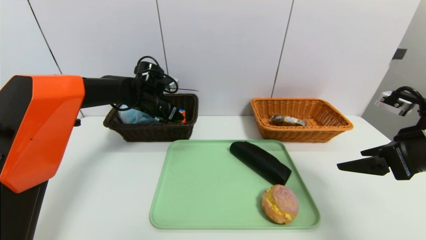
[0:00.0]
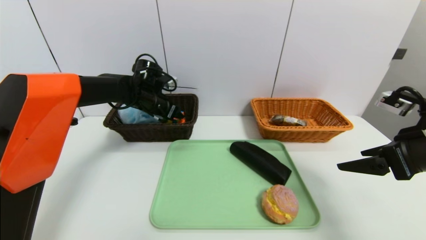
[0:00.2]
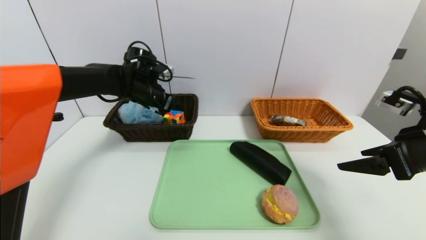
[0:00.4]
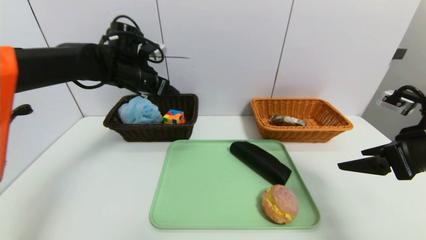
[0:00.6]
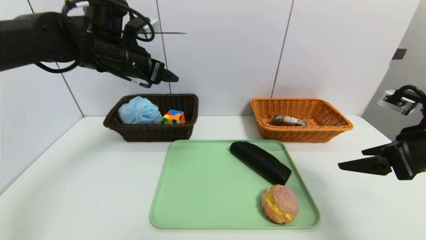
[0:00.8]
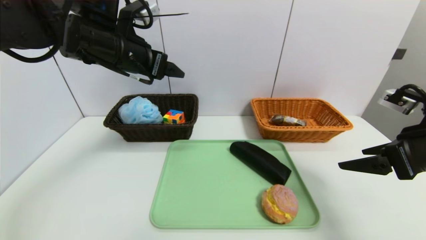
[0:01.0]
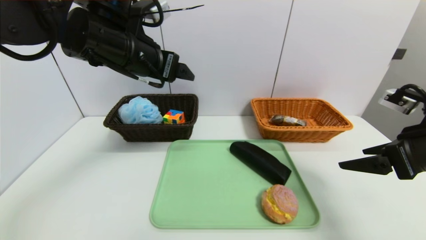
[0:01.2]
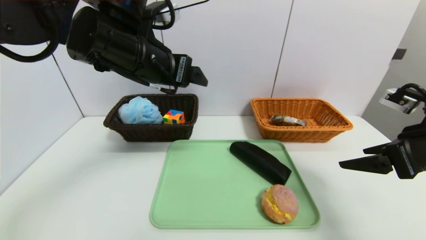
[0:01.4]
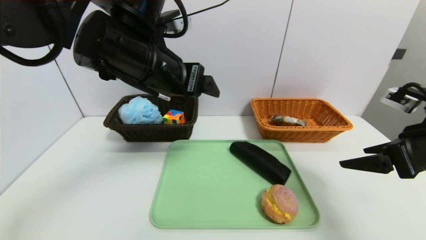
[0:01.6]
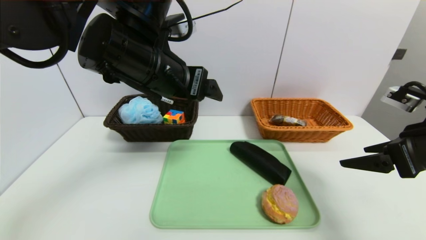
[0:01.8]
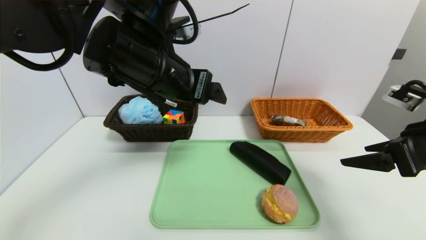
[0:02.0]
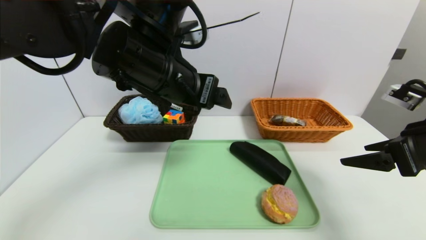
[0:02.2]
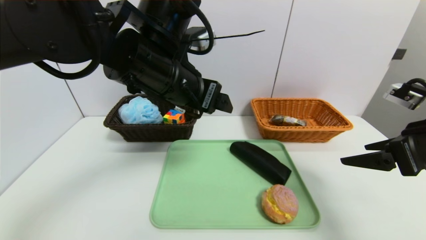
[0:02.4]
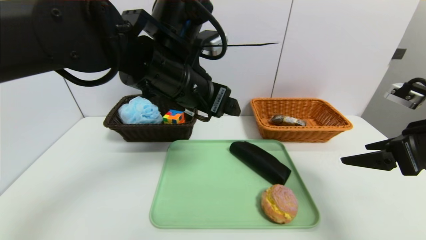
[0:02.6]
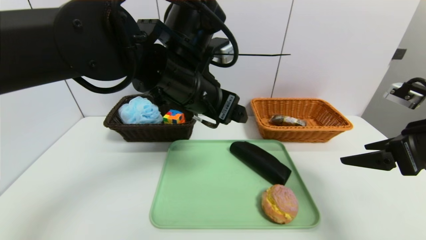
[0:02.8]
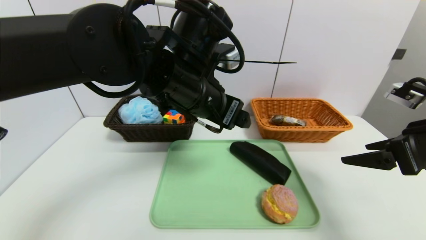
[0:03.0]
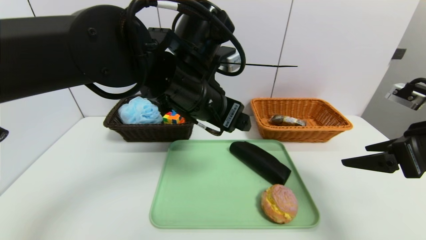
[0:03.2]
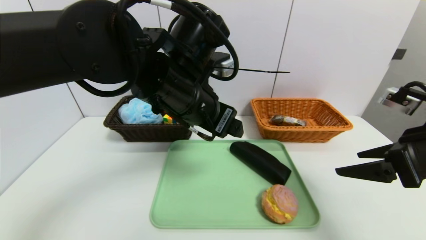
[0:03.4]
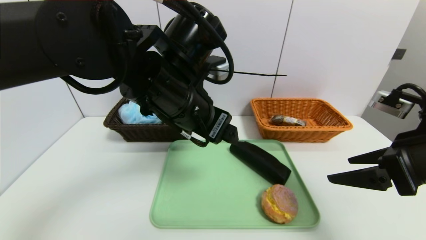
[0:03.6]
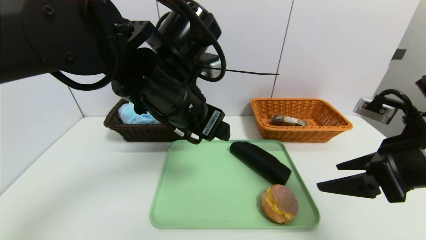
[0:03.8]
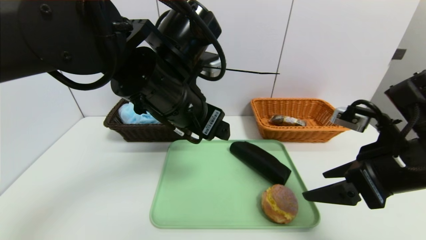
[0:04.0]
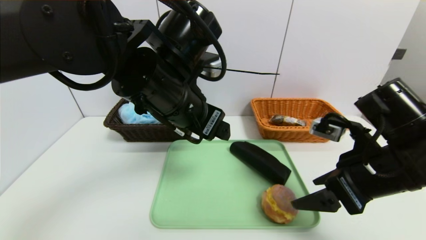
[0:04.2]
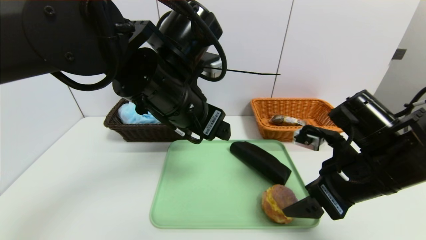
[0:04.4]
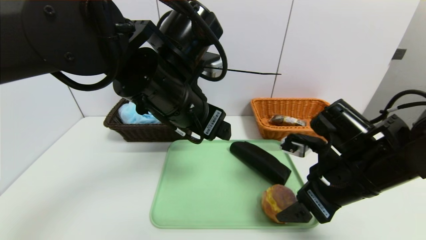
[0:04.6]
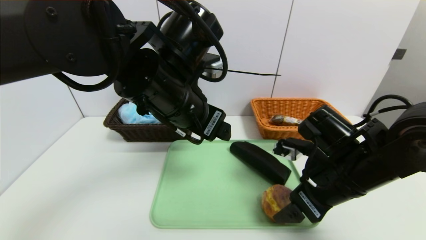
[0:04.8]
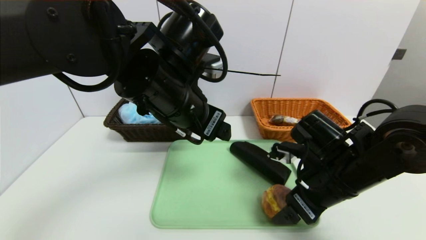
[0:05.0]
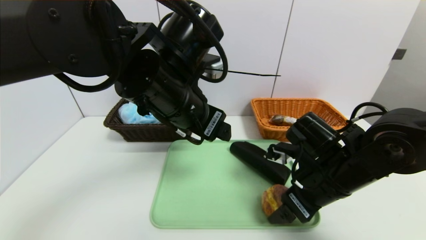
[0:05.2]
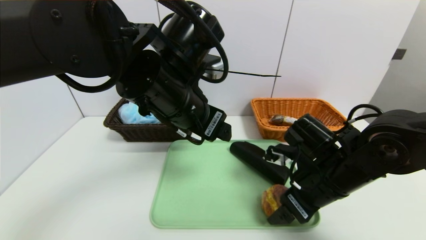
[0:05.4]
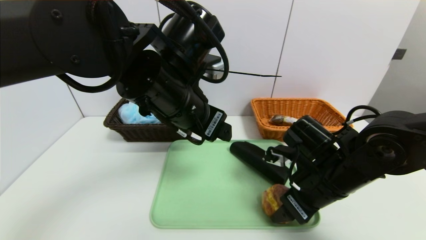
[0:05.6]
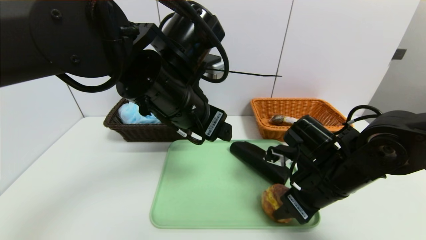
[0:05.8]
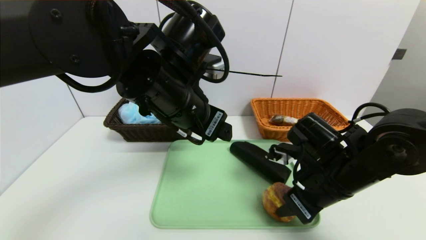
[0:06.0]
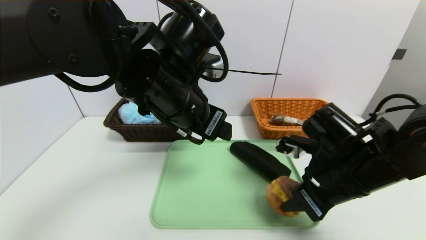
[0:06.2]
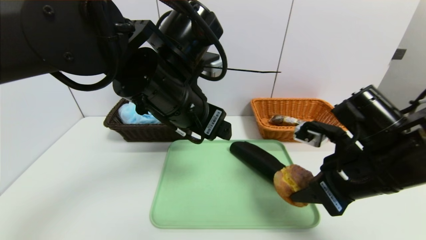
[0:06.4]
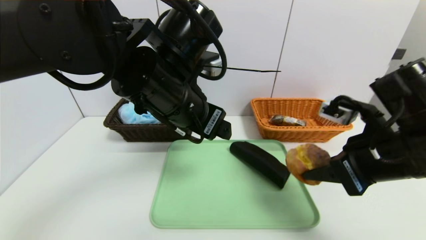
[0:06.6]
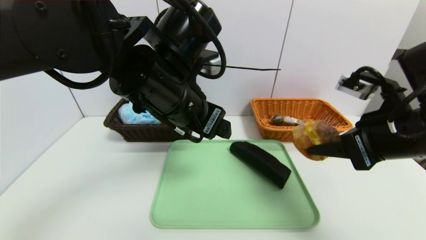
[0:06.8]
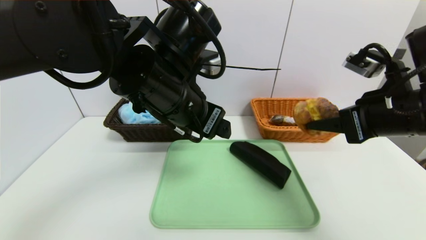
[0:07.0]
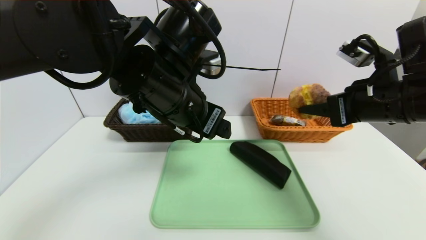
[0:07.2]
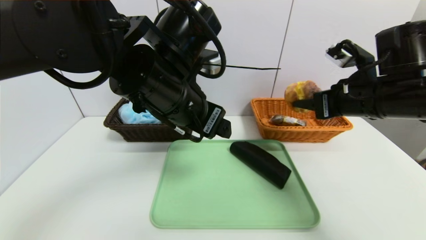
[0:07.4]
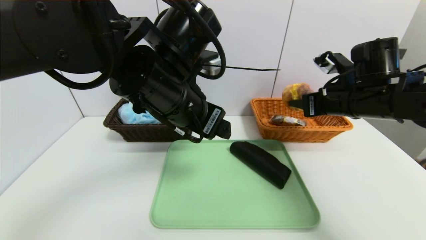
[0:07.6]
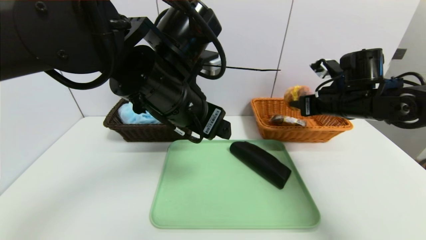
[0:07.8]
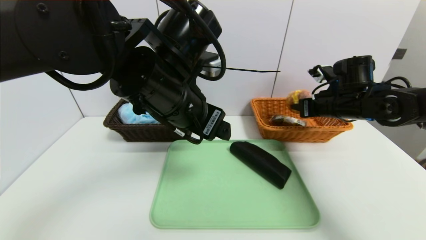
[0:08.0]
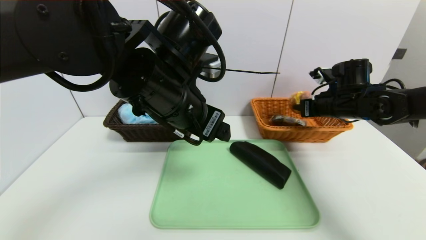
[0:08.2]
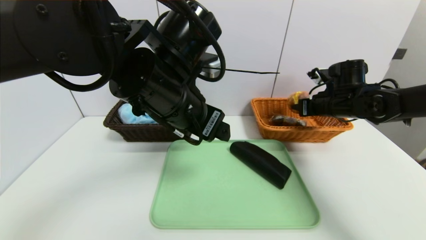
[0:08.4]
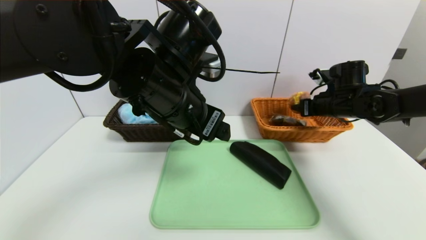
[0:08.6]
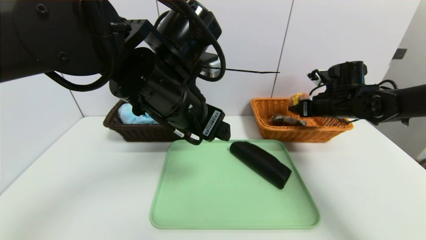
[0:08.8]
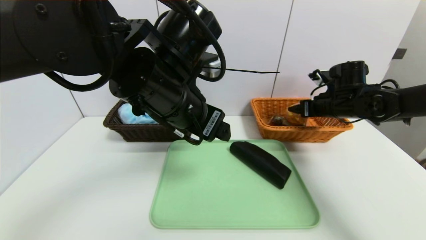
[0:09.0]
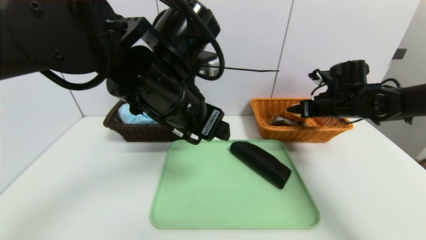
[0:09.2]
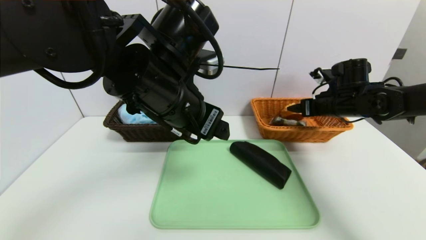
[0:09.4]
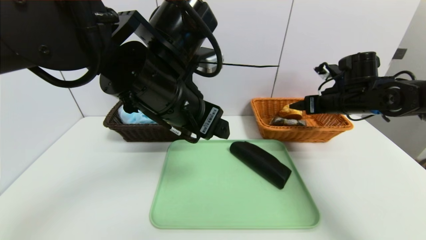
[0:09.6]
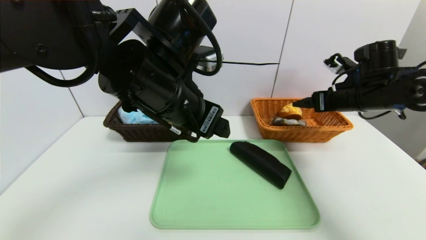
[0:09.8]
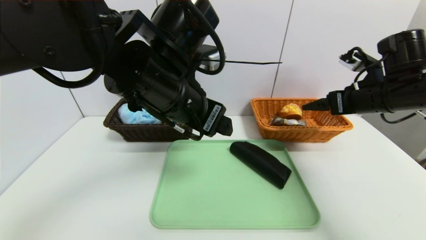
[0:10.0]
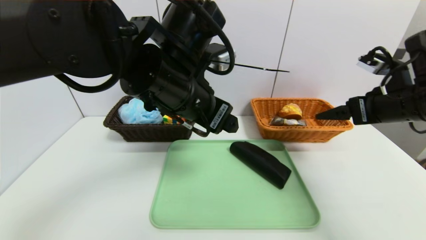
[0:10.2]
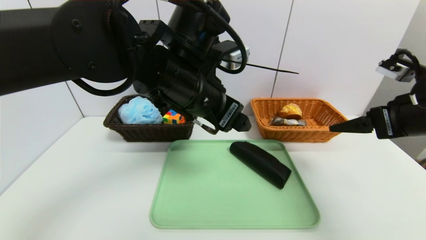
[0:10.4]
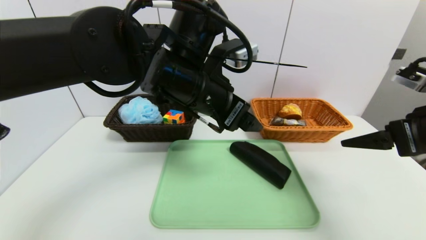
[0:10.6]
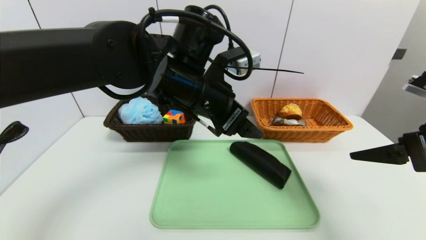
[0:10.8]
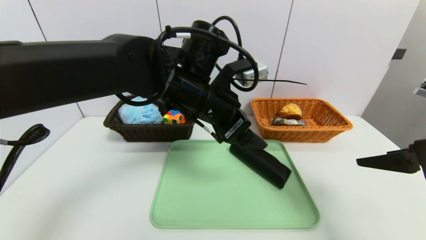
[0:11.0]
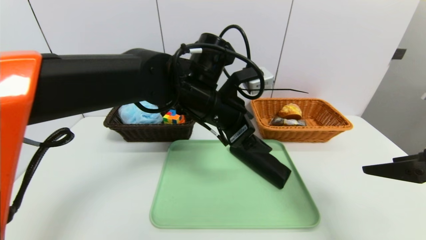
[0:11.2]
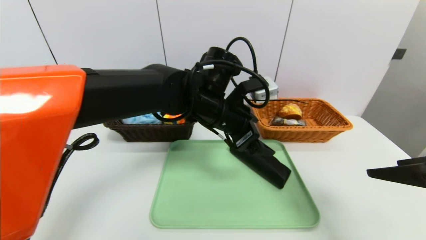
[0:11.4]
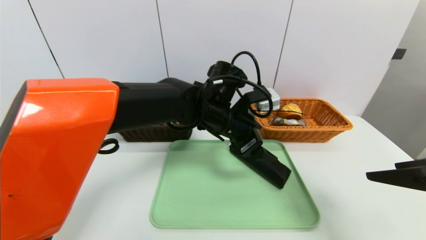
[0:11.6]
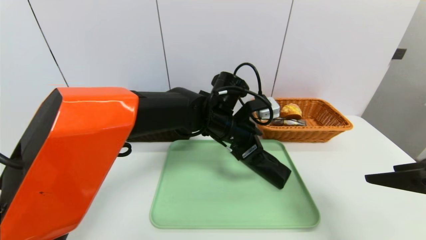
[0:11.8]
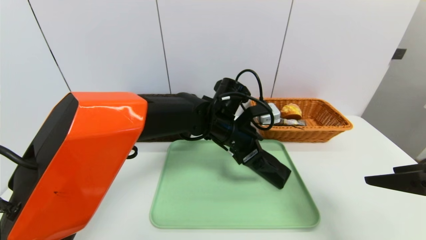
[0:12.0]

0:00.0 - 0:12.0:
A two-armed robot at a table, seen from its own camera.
Task of the whole recording: place the food in the right basket with the right gripper, and place the non food items in the left basket with the left gripper.
Step, 0:00.6 - 0:09.4: Grasp the round bread and put it in the right basket.
0:00.0 - 0:01.6: The left gripper moves backward and upward, about 25 cm.
0:01.6 - 0:03.0: The left gripper travels to the right by some 5 cm.
0:03.0 - 0:04.4: The right gripper heads to the left and downward, covering roughly 10 cm.
0:04.4 - 0:06.0: The right gripper ends up some 5 cm from where it was, and closes.
0:06.0 - 0:07.6: The right gripper goes approximately 15 cm forward, upward and to the right.
0:07.6 - 0:09.0: The right gripper moves forward and downward, approximately 10 cm, and opens up.
0:09.0 - 0:10.4: The right gripper moves backward and upward, about 20 cm.
0:10.4 - 0:12.0: The left gripper heads downward, forward and to the right, covering some 15 cm; the right gripper moves backward, approximately 10 cm.

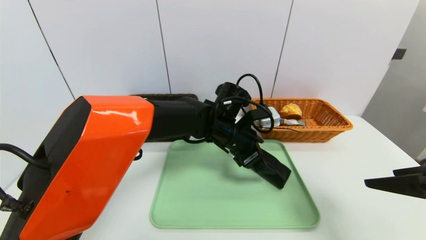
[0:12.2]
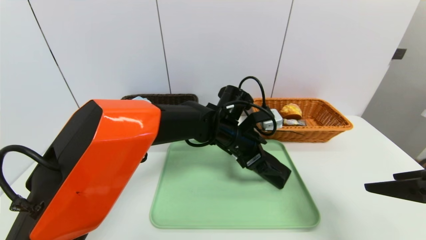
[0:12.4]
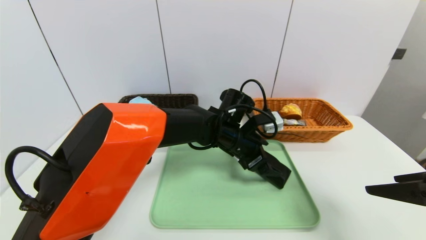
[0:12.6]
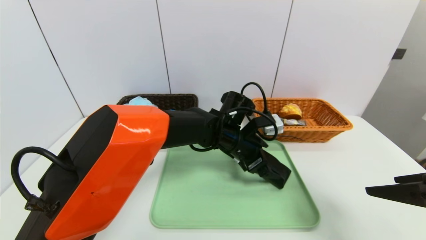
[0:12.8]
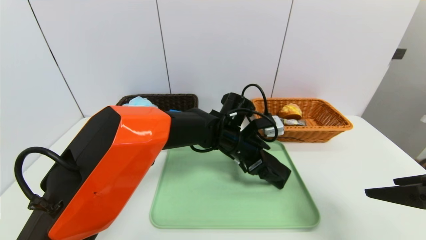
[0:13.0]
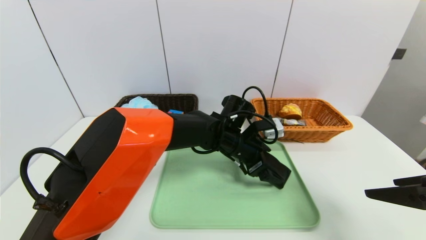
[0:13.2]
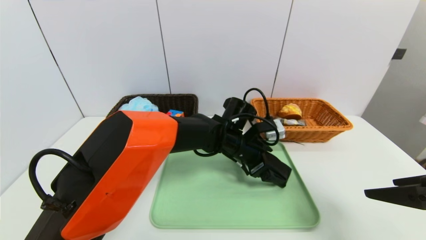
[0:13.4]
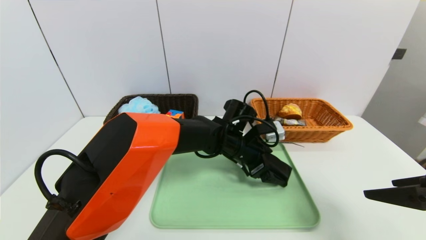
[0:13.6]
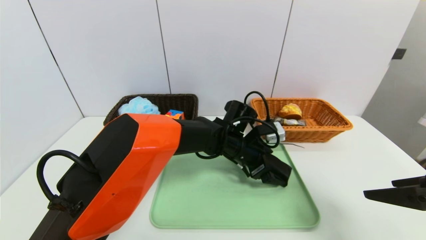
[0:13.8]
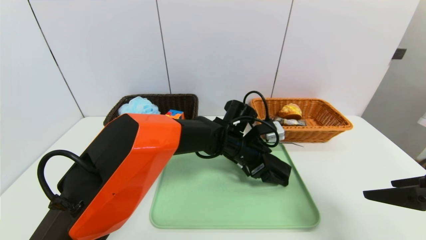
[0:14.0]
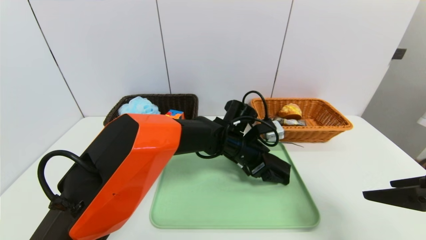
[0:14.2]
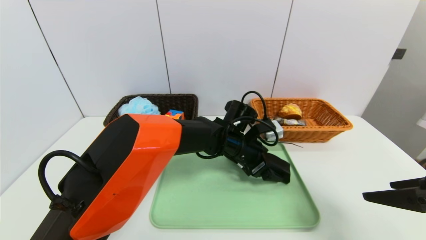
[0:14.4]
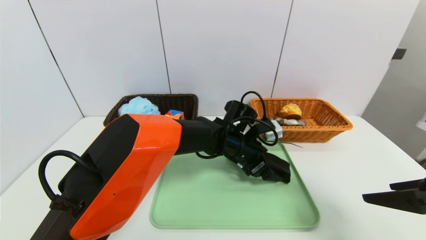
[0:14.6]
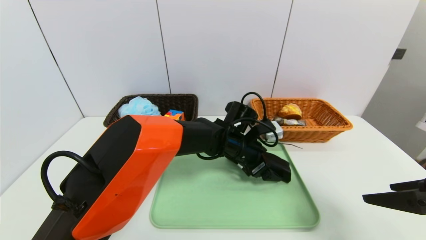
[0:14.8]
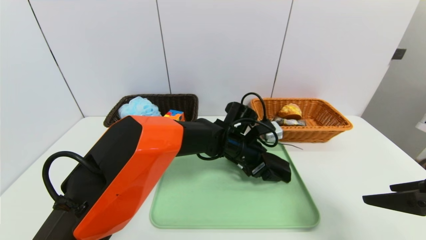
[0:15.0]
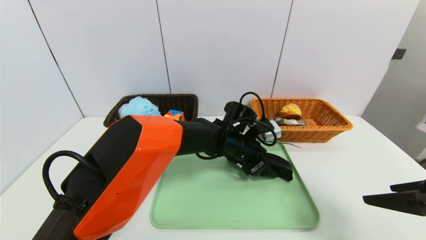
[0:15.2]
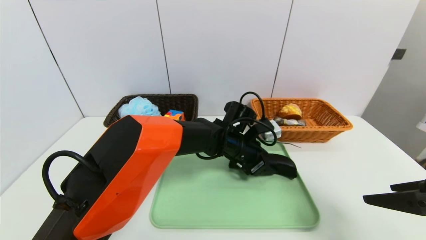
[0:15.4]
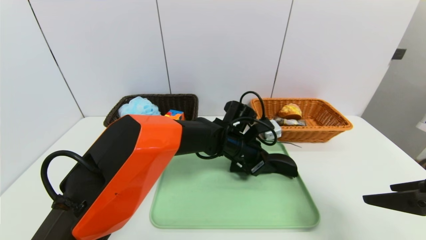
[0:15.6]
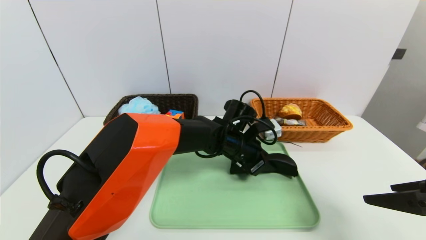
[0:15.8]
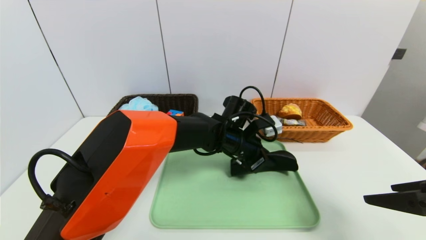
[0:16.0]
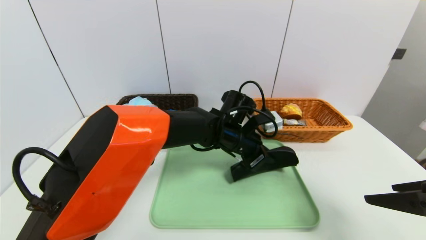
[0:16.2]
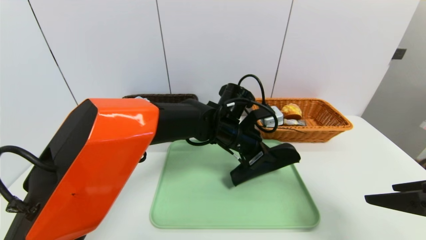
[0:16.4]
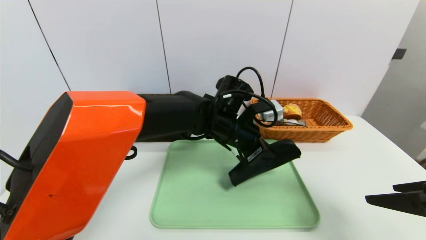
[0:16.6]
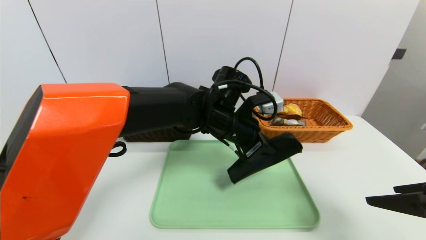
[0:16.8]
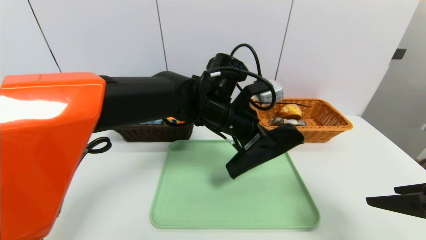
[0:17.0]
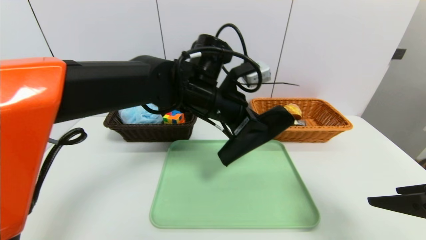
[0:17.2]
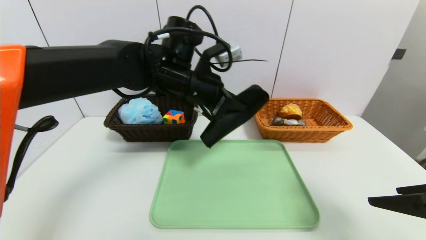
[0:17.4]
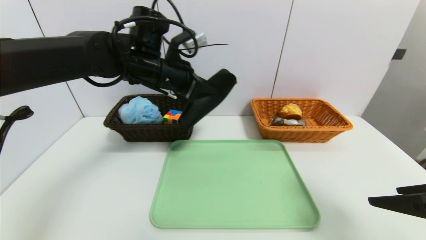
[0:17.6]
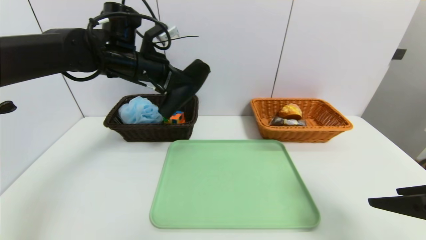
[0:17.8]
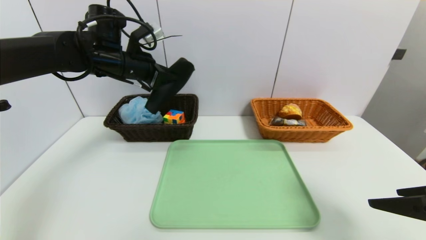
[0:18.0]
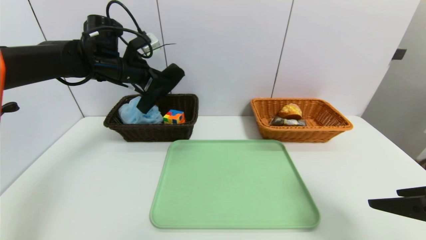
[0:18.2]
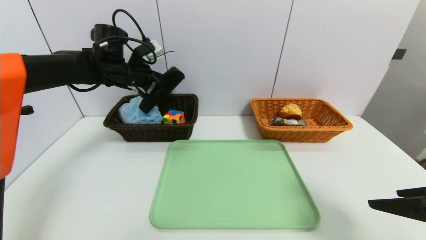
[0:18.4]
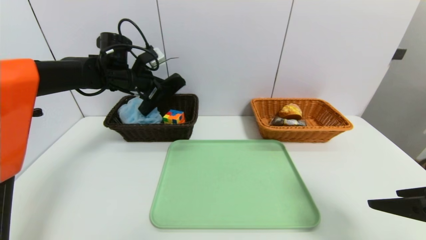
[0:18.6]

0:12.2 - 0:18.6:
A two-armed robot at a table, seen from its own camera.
Task of the whole recording: place the food in the right basket with the right gripper, and place the non food items in the left basket with the left gripper.
0:12.2 - 0:13.8: The left gripper moves approximately 5 cm.
0:13.8 - 0:15.4: The left gripper closes.
0:15.4 - 0:17.0: The left gripper is displaced upward by approximately 10 cm, and closes up.
0:17.0 - 0:18.6: The left gripper shifts roughly 25 cm to the left and forward.
